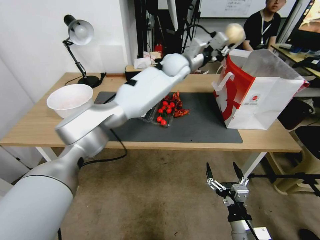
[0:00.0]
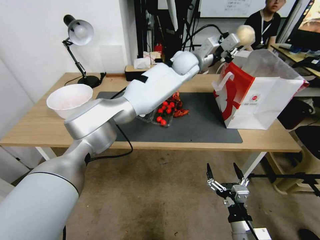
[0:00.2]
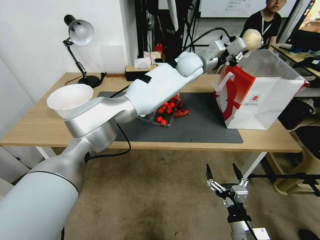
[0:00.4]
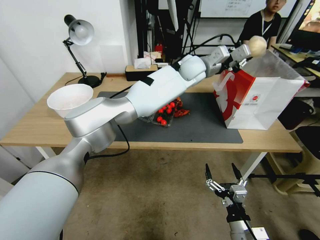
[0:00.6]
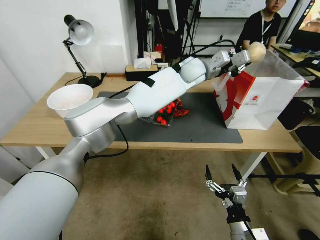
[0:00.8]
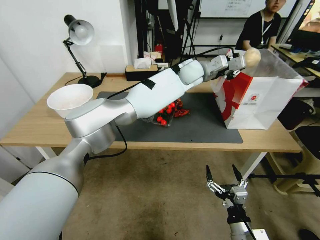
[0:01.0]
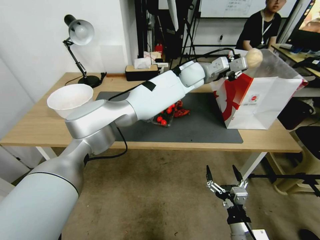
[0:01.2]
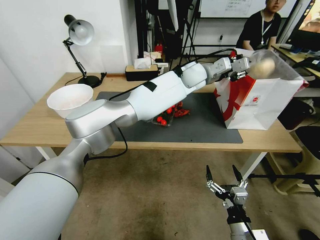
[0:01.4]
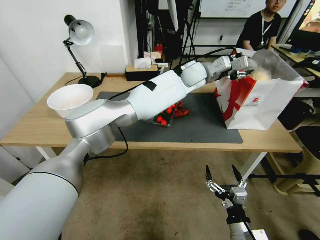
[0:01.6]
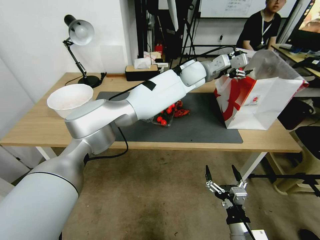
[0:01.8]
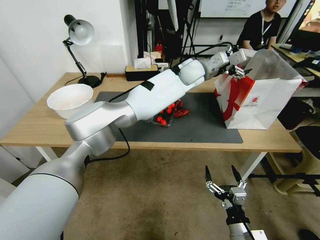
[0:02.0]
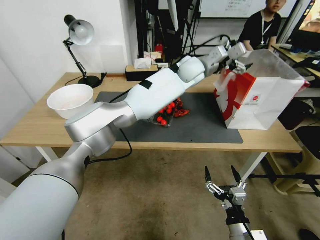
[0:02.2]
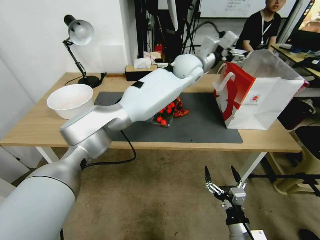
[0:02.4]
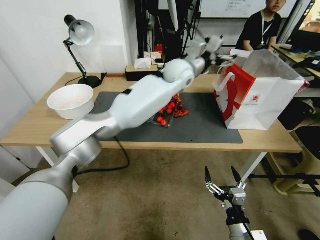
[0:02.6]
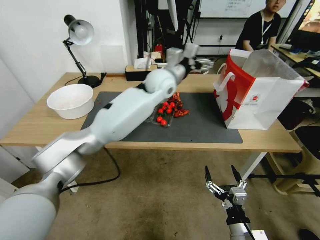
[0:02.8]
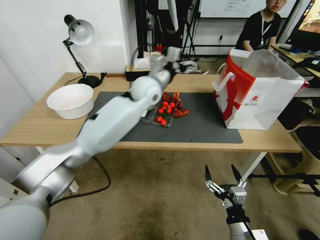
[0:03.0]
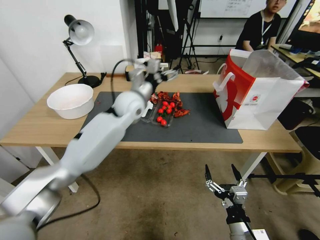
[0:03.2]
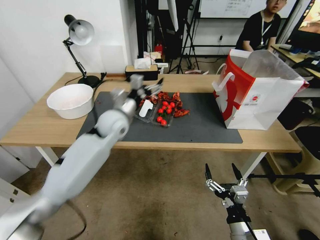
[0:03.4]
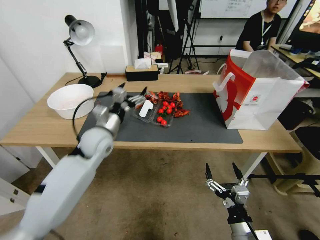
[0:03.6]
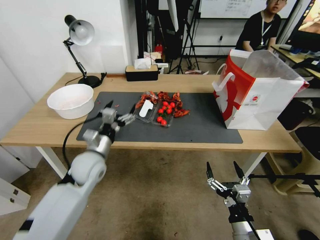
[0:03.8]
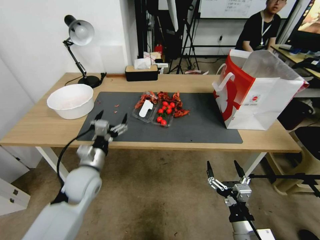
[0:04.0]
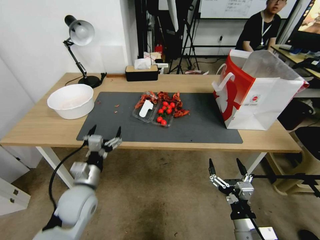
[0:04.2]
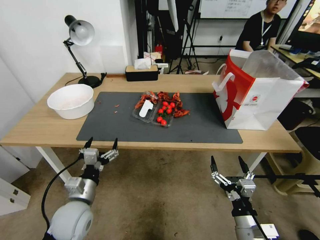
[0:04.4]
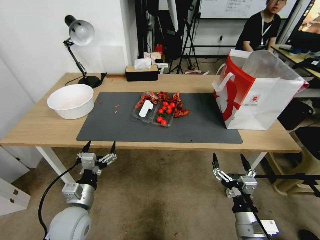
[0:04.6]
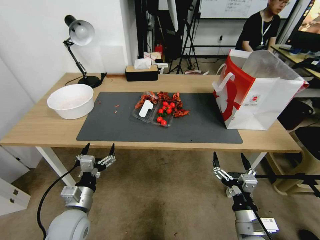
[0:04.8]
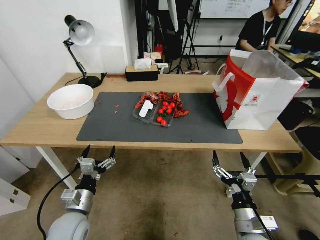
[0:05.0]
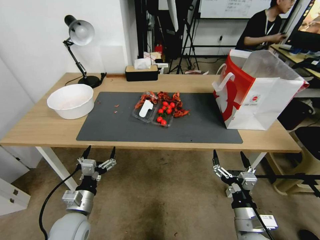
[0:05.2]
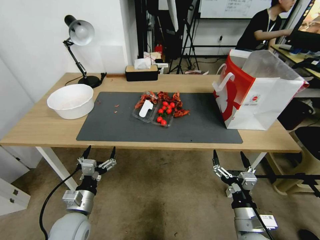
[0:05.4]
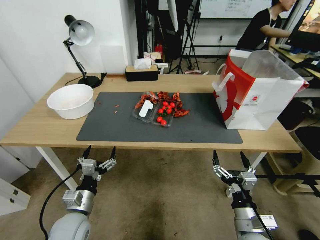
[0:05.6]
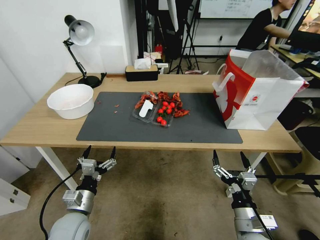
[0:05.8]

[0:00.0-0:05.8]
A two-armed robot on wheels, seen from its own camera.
0:00.0 to 0:01.4: The left gripper goes approximately 5 cm to the right.
0:01.4 to 0:02.8: The left gripper moves to the left, some 10 cm, and opens.
0:02.8 to 0:04.4: The left gripper heads backward, to the left and downward, covering about 50 cm.
0:04.4 to 0:05.8: The grippers make only small movements.

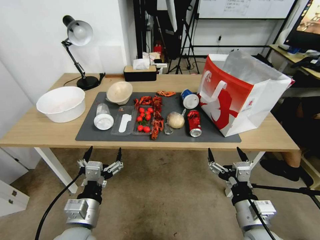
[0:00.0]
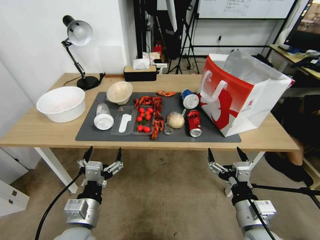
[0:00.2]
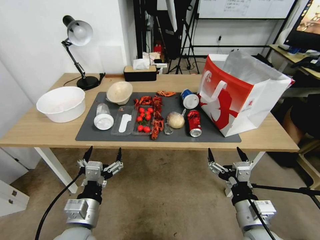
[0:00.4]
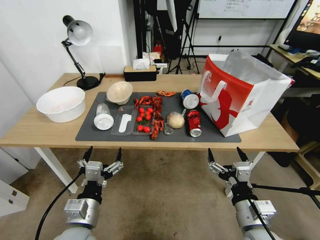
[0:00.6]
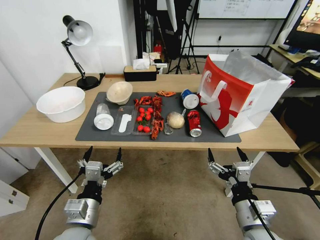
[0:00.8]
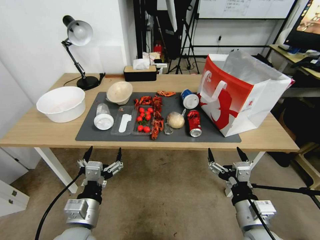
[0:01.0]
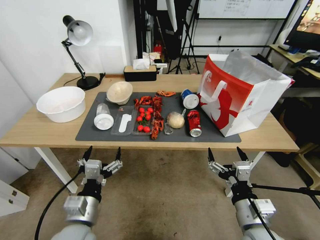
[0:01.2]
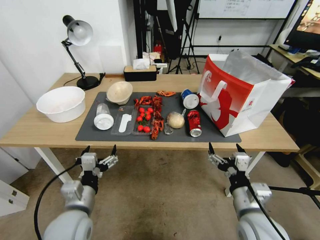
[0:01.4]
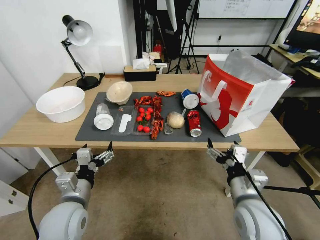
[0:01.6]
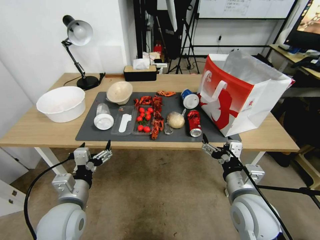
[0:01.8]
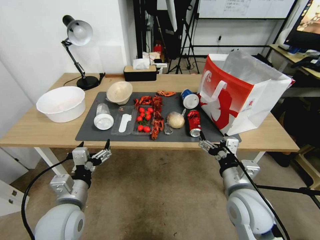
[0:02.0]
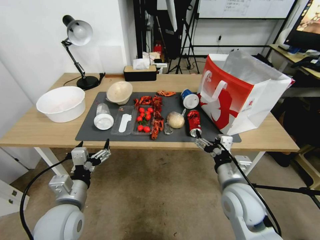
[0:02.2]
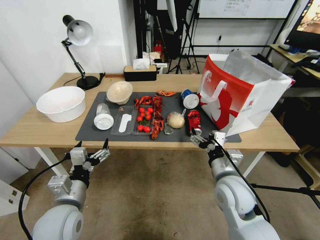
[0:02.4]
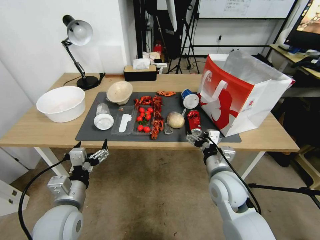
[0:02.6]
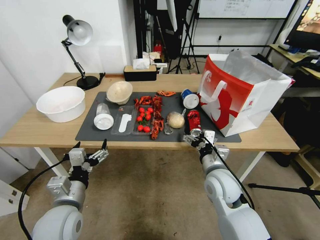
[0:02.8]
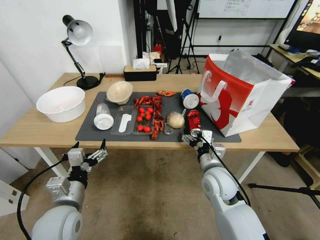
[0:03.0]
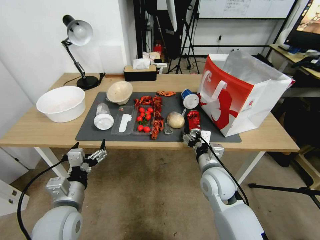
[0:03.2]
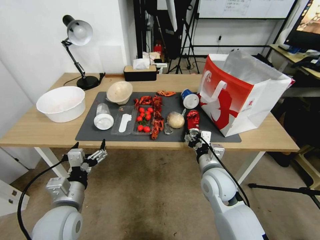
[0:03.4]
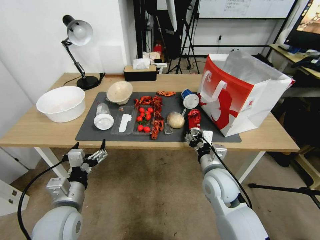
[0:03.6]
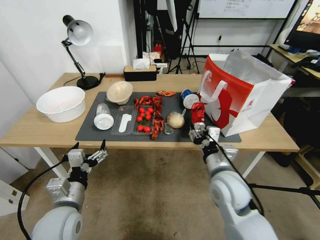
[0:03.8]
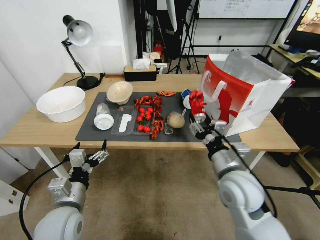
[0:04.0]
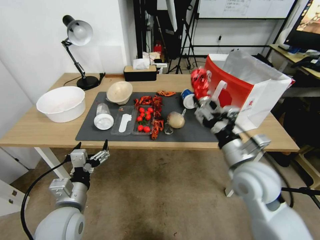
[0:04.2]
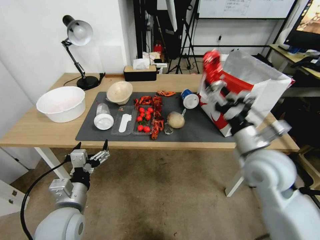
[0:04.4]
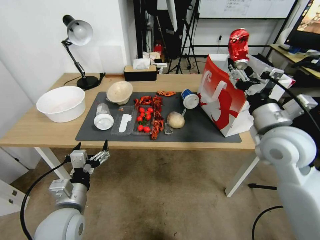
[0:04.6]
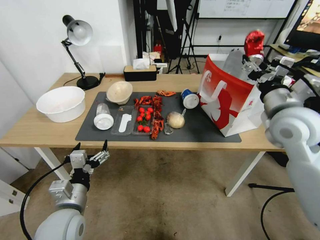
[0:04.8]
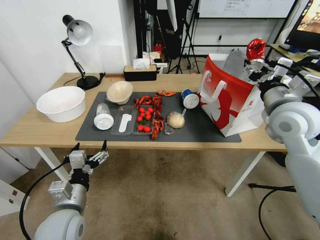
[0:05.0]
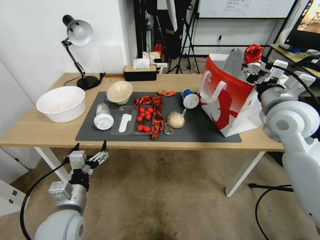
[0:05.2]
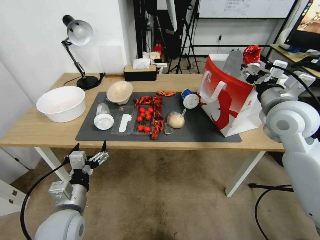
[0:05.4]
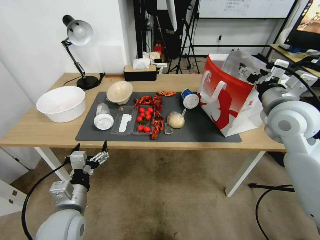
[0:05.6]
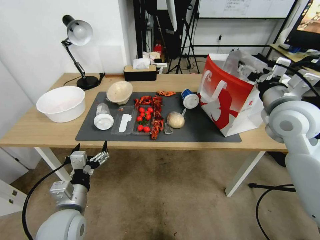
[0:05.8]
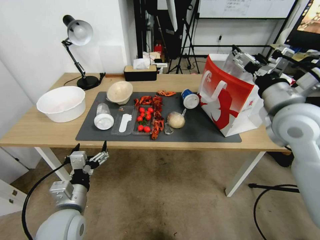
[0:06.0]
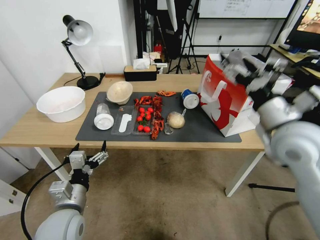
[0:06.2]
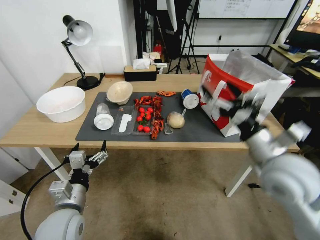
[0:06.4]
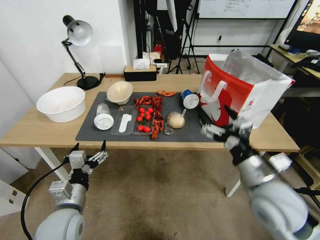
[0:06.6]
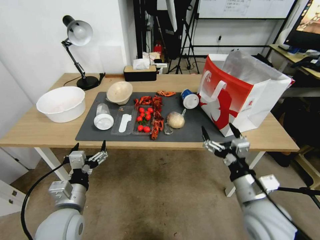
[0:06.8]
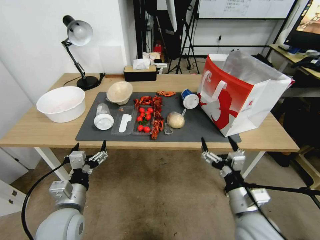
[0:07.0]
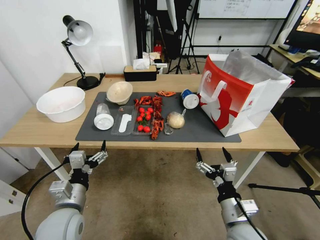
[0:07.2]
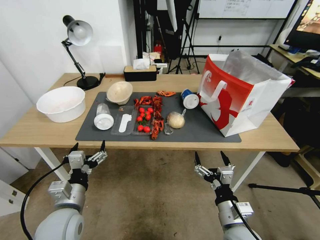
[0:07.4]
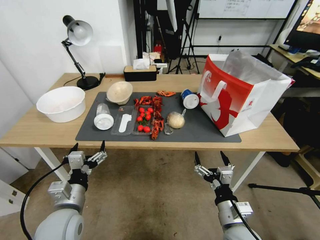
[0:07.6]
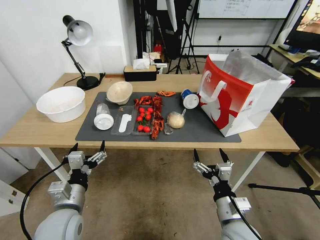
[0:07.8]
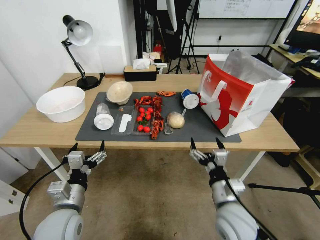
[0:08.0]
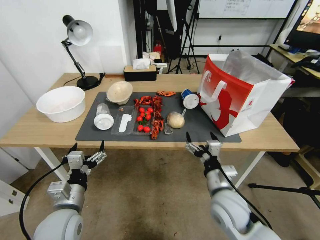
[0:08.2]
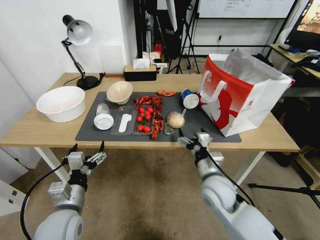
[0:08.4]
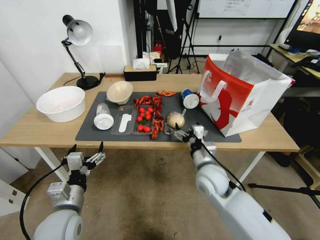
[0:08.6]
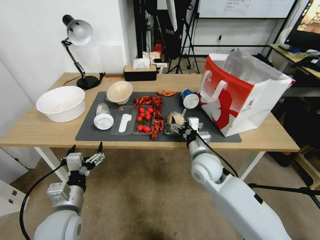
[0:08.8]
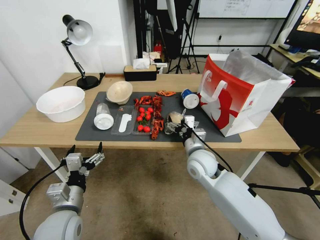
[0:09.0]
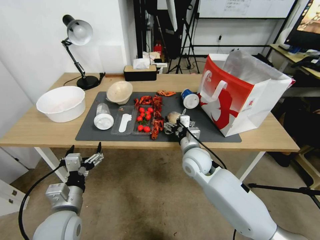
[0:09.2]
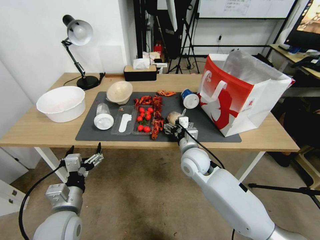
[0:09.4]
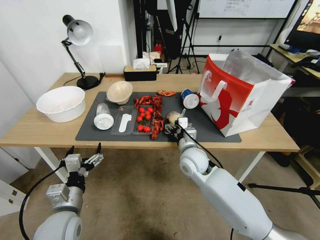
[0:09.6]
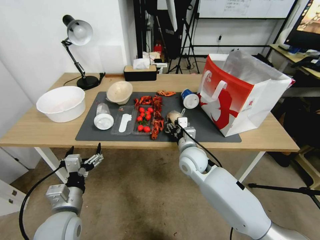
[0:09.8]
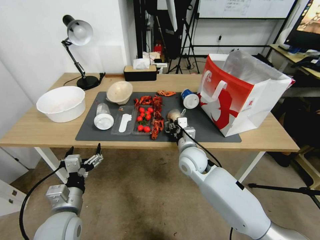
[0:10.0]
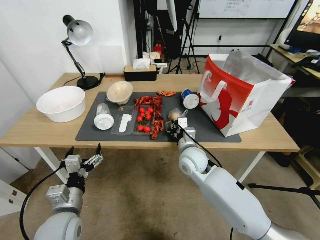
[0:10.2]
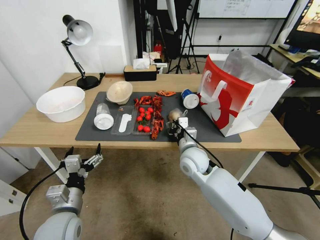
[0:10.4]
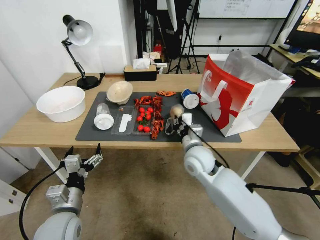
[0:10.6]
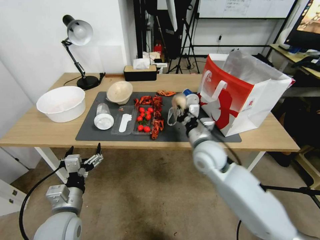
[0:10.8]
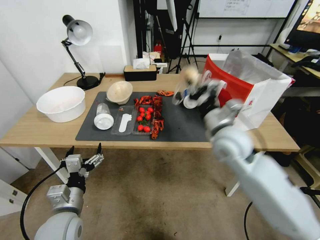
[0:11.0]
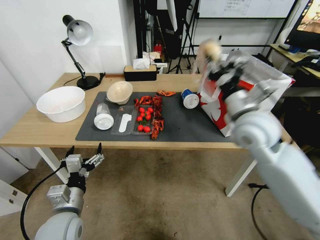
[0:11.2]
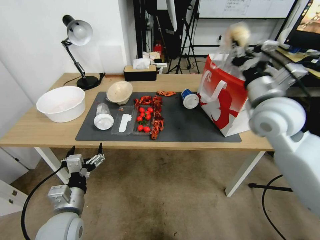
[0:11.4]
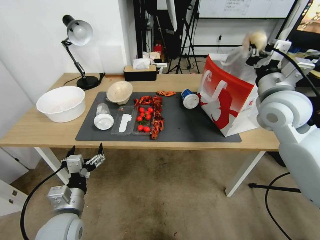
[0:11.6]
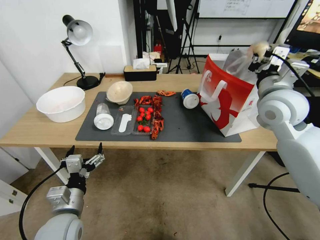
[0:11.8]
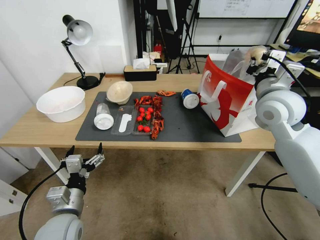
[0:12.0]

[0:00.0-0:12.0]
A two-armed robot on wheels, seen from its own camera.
0:01.6 to 0:03.0: The right gripper goes approximately 10 cm forward and to the left.
0:03.0 to 0:04.4: The right gripper moves upward and to the right, roughly 15 cm, and closes its fingers.
0:04.4 to 0:06.0: The right gripper shifts approximately 10 cm upward and forward, and opens up.
0:06.0 to 0:07.6: The right gripper moves downward and backward, roughly 35 cm.
0:07.6 to 0:09.0: The right gripper heads forward, covering some 20 cm.
0:09.0 to 0:10.4: The right gripper closes.
0:10.4 to 0:12.0: The right gripper heads upward and to the right, covering some 30 cm.

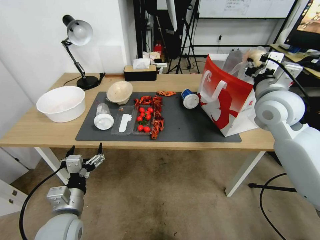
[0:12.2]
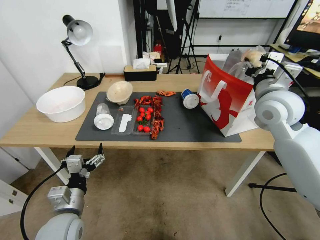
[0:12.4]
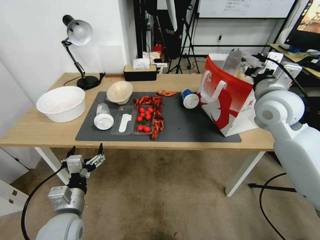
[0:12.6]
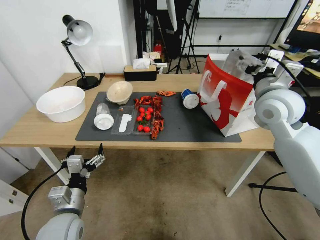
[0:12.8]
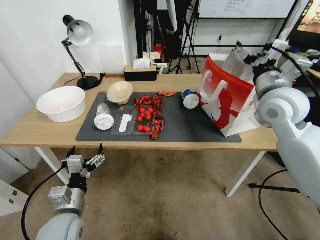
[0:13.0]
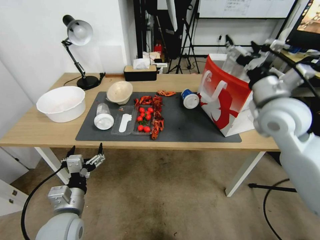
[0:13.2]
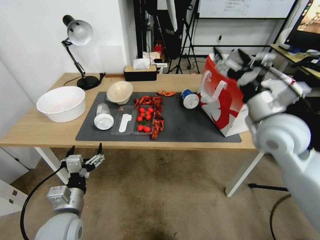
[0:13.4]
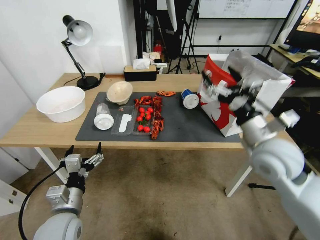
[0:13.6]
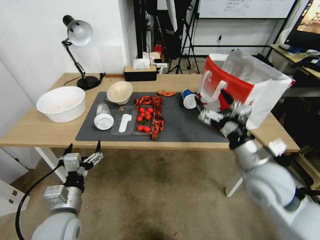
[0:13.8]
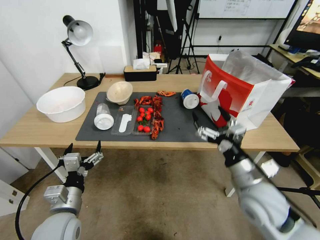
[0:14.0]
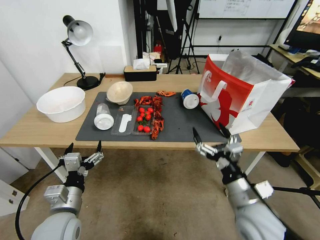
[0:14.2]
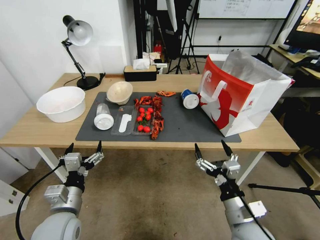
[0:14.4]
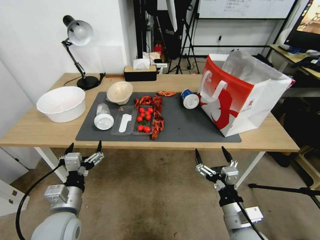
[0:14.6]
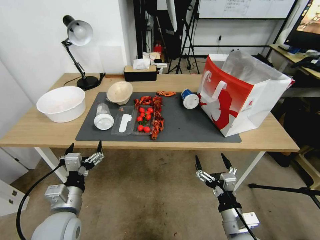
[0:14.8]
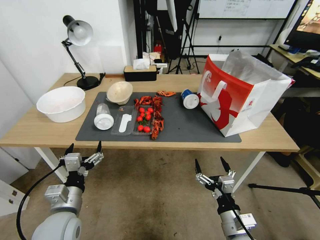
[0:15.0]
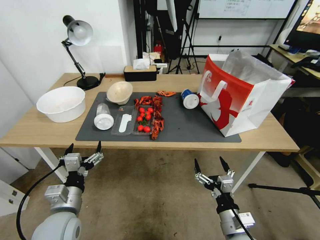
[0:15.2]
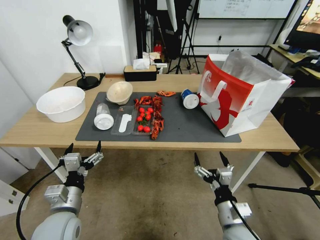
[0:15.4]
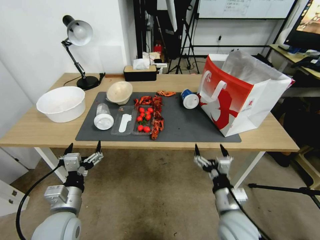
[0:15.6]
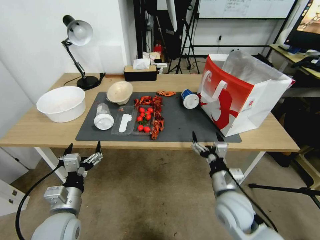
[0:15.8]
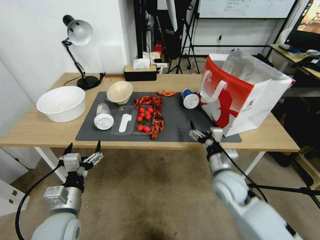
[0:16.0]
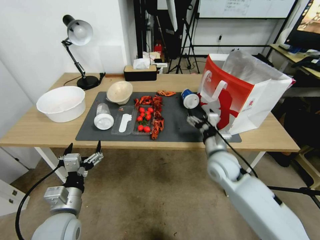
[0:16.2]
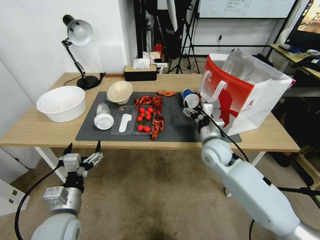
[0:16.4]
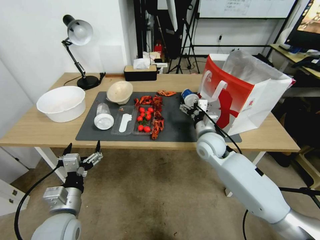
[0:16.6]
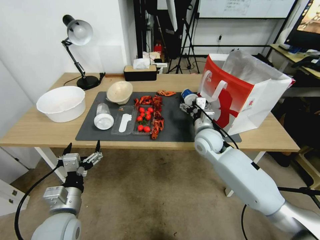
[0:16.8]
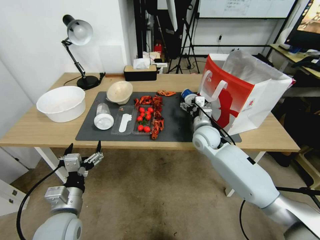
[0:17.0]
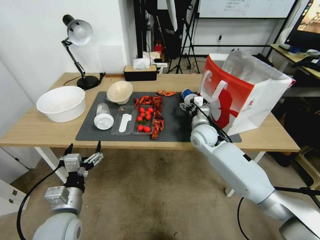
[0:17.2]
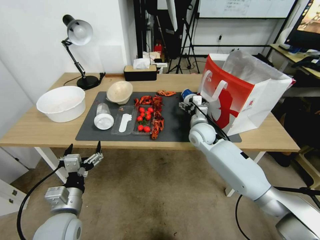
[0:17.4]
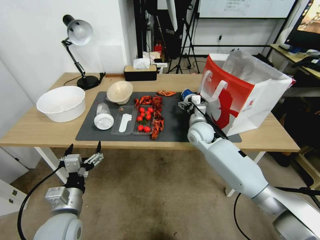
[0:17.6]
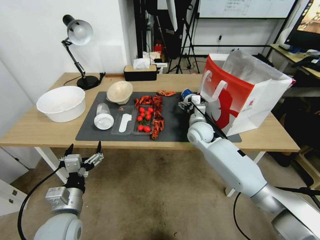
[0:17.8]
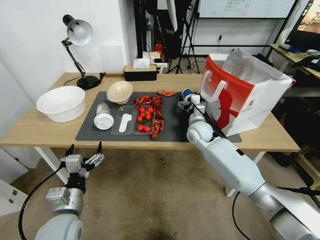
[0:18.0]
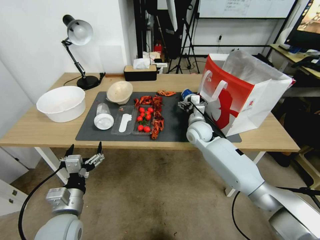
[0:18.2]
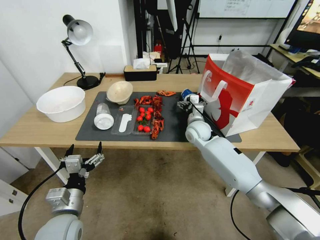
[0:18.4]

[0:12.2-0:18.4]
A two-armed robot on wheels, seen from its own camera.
0:12.2 to 0:13.8: The right gripper heads backward, covering some 10 cm, and opens.
0:13.8 to 0:15.4: The right gripper is displaced downward and backward by roughly 30 cm.
0:15.4 to 0:16.8: The right gripper moves forward, roughly 25 cm.
0:16.8 to 0:18.4: The right gripper heads forward, covering about 10 cm.
